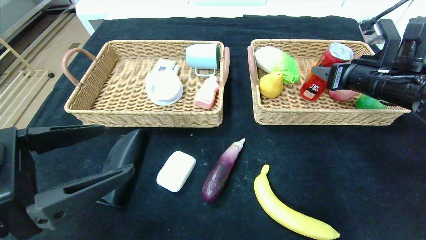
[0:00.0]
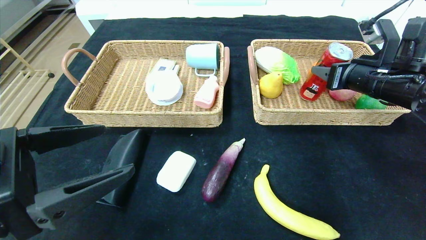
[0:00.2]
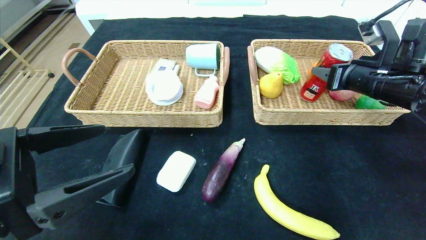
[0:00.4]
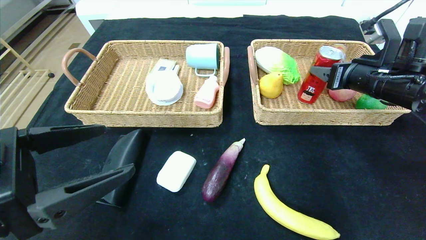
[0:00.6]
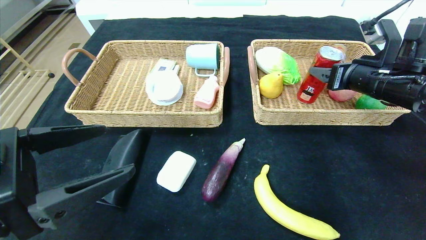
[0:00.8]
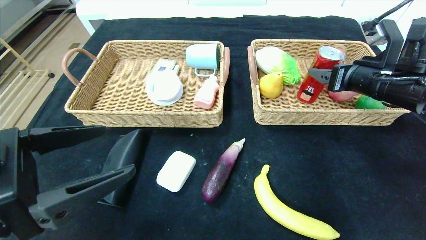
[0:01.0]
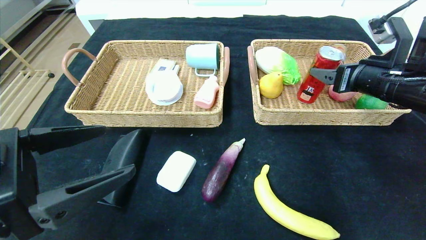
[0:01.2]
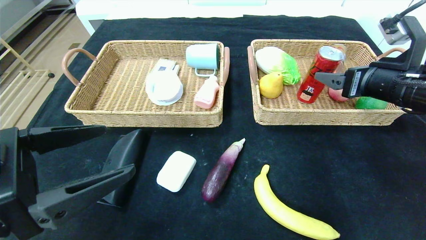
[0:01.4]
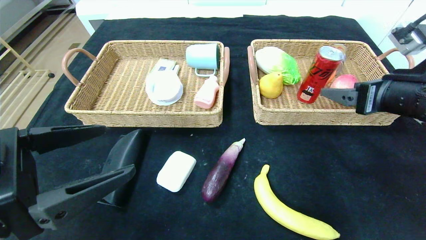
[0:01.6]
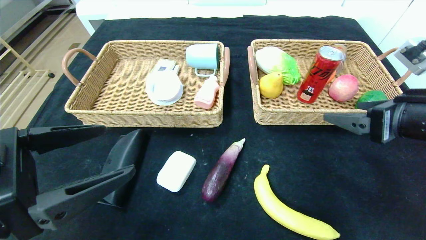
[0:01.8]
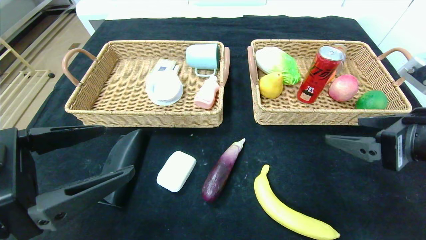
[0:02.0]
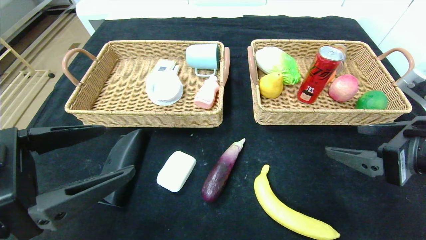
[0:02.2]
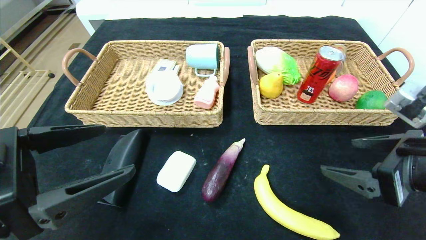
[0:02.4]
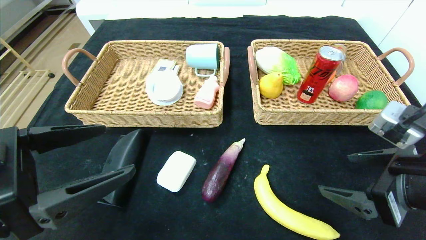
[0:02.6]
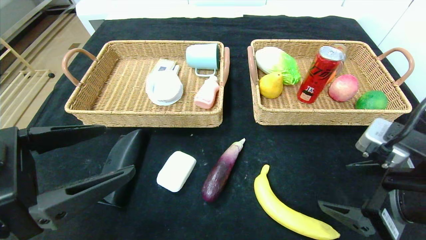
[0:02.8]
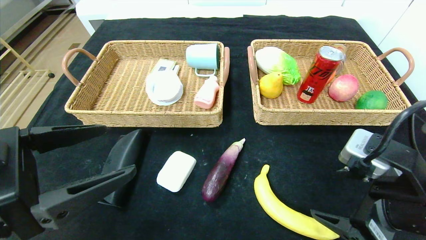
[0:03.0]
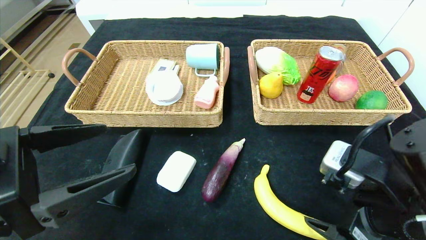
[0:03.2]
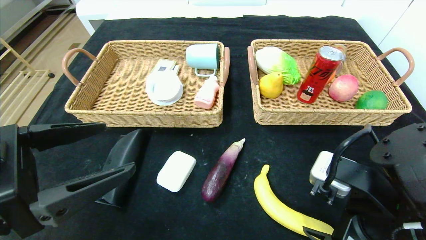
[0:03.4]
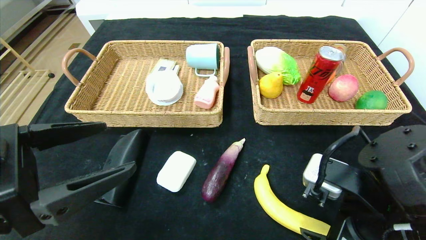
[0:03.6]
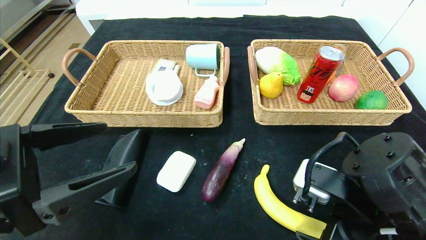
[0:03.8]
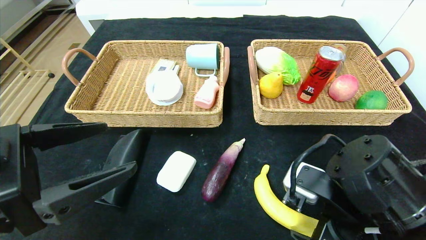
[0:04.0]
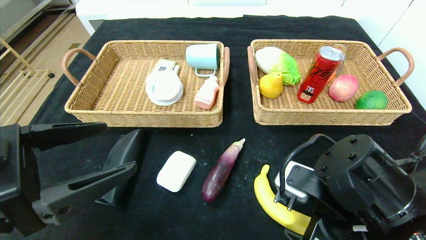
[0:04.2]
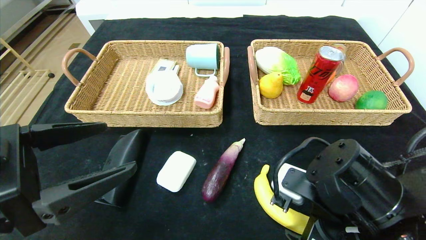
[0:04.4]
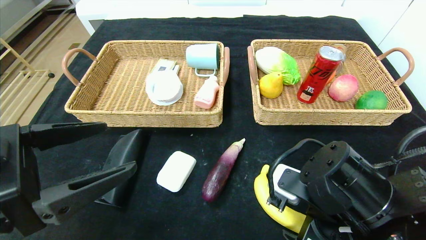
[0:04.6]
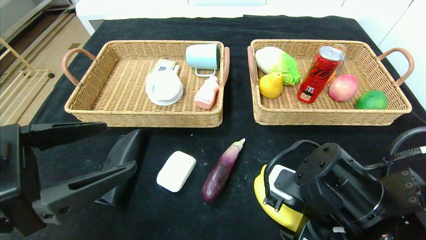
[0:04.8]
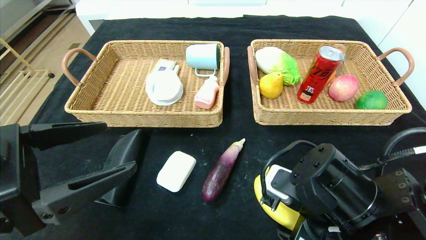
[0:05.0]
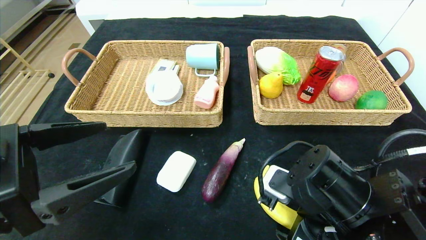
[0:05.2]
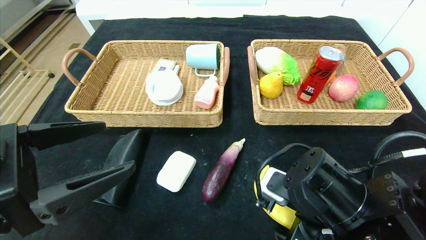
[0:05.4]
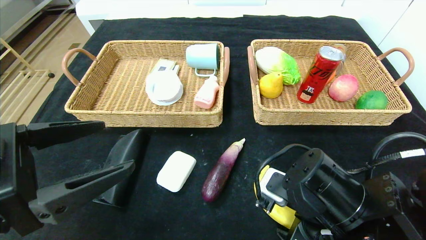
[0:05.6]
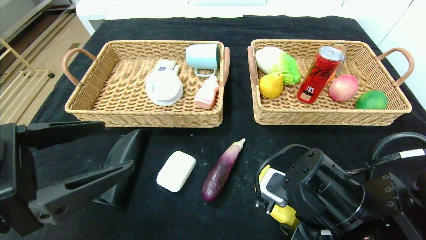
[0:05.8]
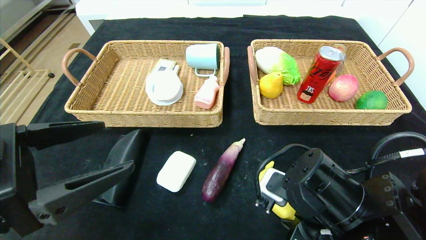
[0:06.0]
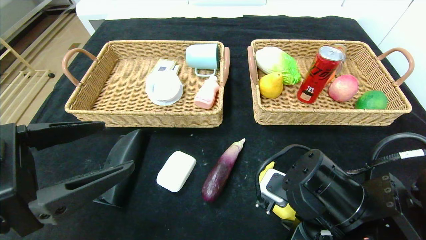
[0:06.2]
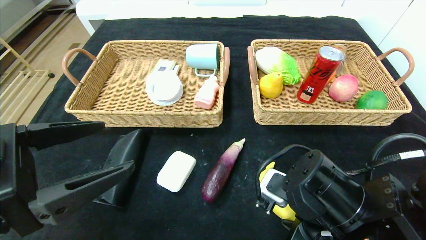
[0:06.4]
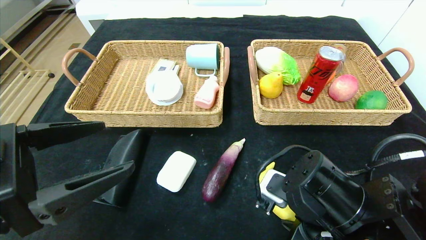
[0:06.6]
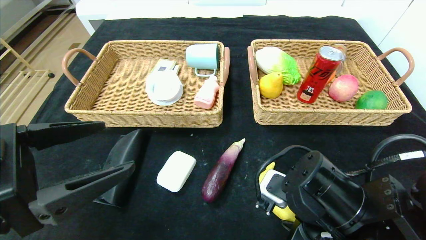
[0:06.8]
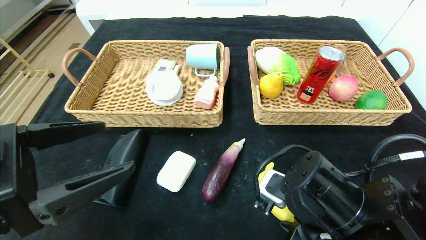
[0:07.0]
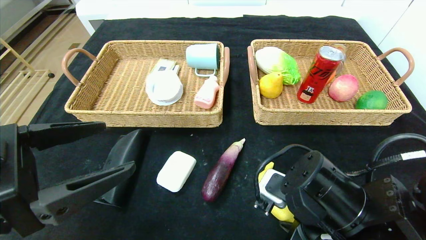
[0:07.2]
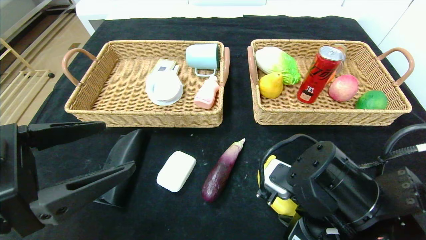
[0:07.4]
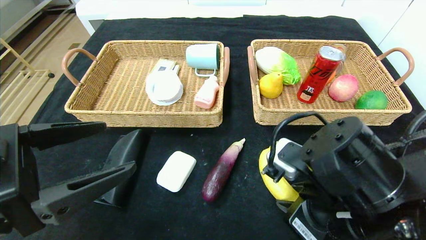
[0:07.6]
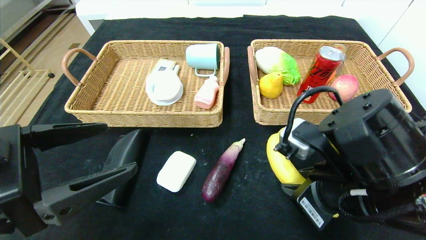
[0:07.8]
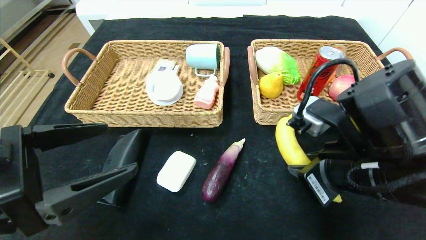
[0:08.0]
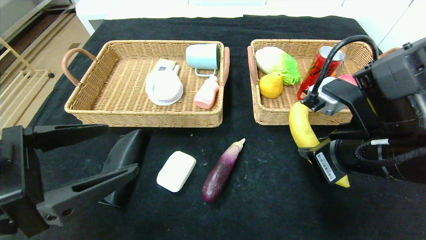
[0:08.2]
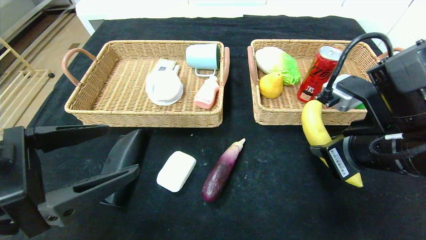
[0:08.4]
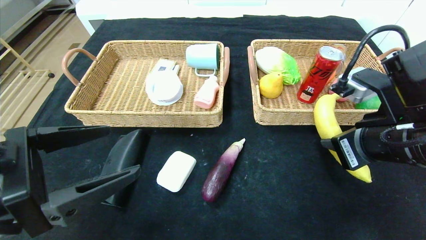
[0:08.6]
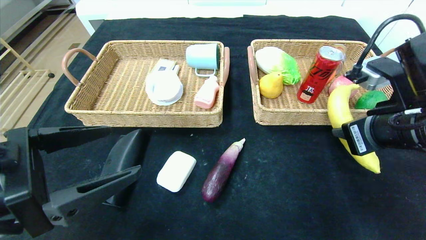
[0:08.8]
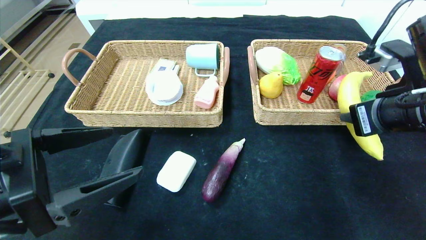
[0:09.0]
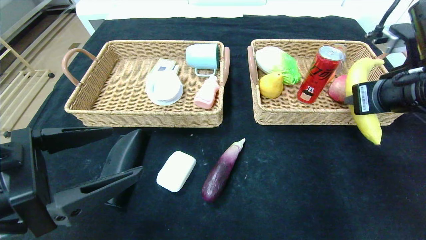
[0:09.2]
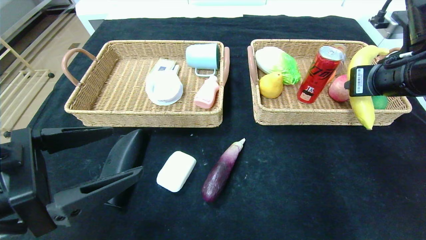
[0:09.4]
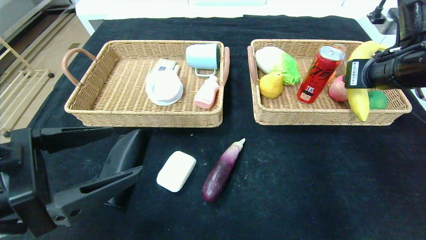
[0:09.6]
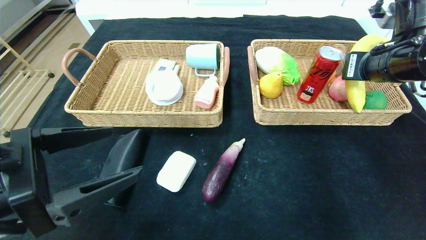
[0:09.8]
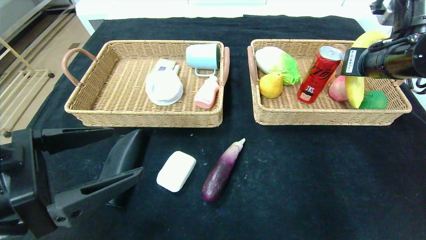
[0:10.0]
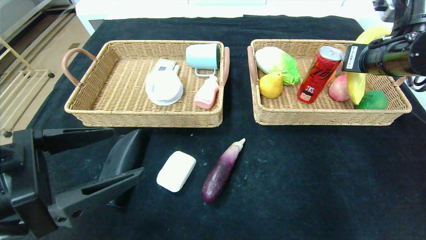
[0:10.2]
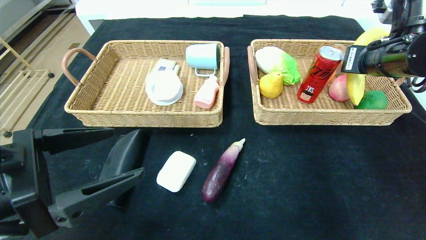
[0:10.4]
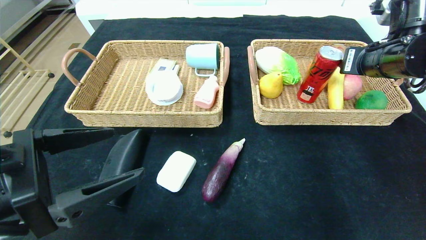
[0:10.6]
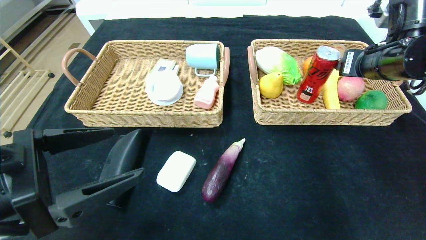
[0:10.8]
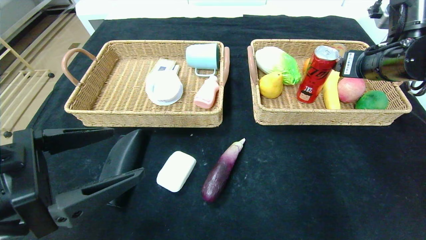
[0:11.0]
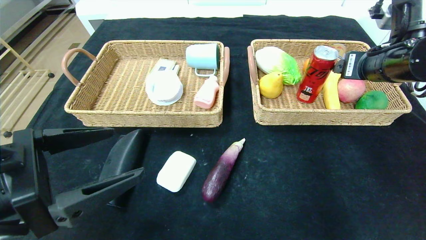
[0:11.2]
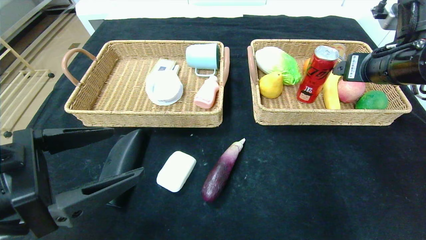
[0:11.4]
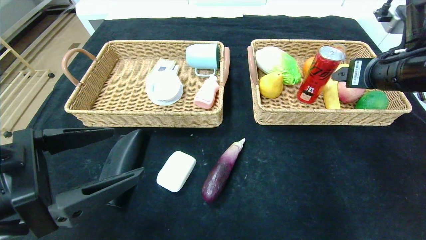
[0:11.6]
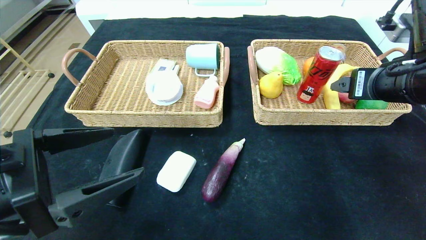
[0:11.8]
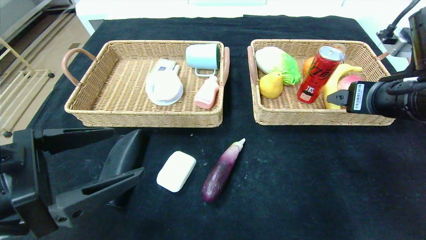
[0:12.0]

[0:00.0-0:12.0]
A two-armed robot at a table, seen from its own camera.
Step, 0:01.0 to 0:10.6: Grasp the banana and put it in the right basket.
0:00.0 to 0:01.6: The right gripper heads backward, covering some 10 cm, and opens.
0:01.6 to 0:03.0: The right gripper moves backward, downward and to the left, some 15 cm.
0:03.0 to 0:04.4: The right gripper heads to the left, covering some 5 cm.
0:04.4 to 0:06.0: The right gripper closes its fingers.
0:06.0 to 0:07.6: There are only small adjustments of the grippers.
0:07.6 to 0:09.0: The right gripper is displaced to the right, upward and forward by approximately 15 cm.
0:09.0 to 0:10.4: The right gripper moves forward, approximately 10 cm.
0:10.4 to 0:12.0: The right gripper shifts roughly 10 cm backward, and opens up.

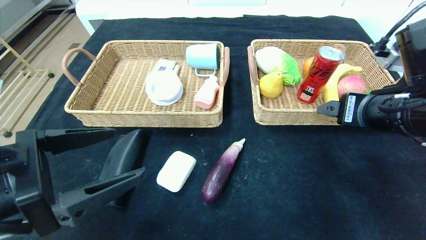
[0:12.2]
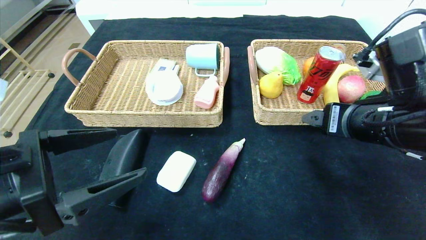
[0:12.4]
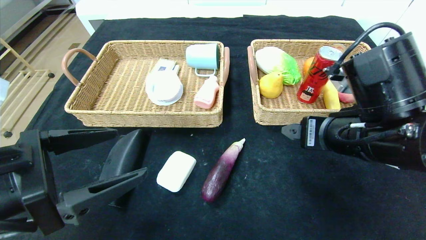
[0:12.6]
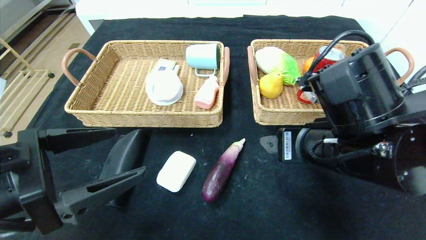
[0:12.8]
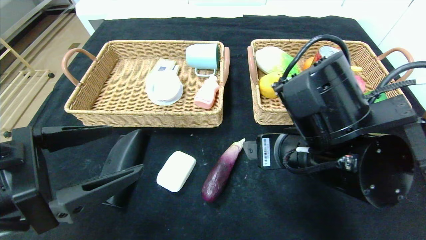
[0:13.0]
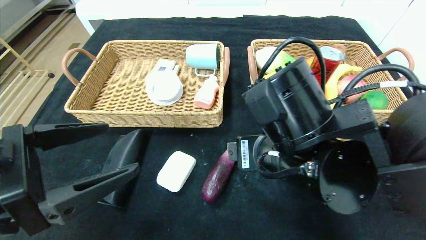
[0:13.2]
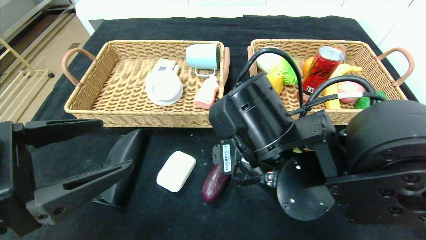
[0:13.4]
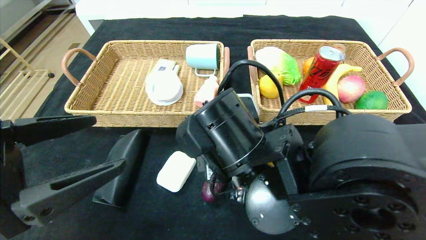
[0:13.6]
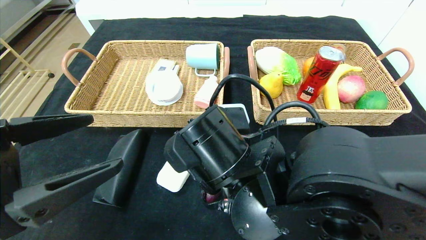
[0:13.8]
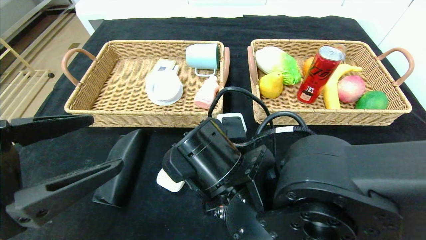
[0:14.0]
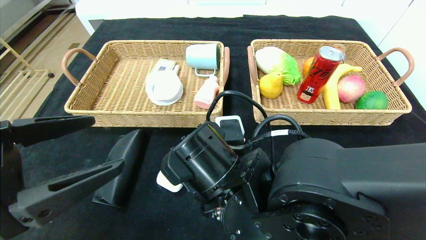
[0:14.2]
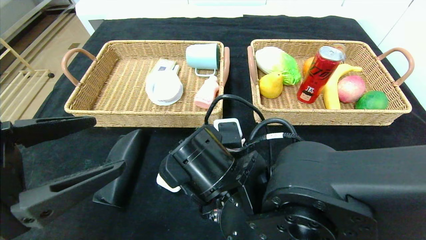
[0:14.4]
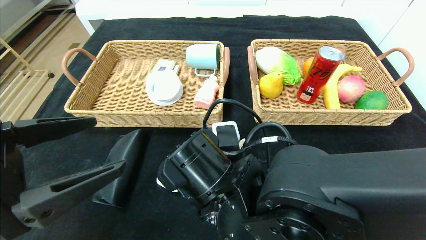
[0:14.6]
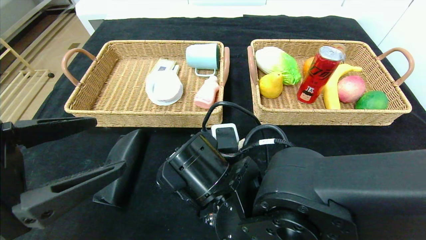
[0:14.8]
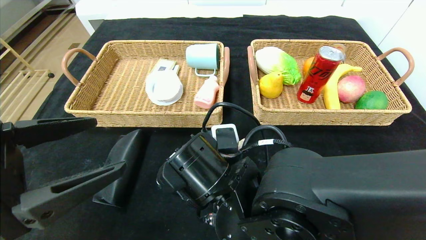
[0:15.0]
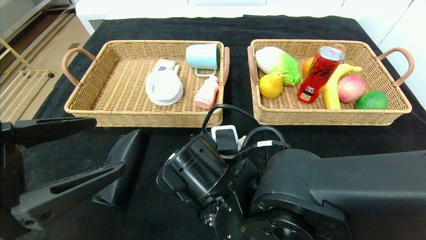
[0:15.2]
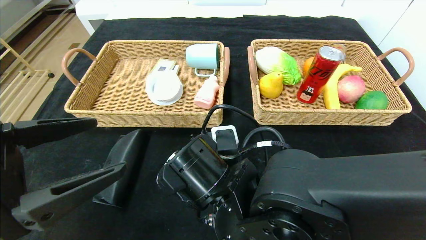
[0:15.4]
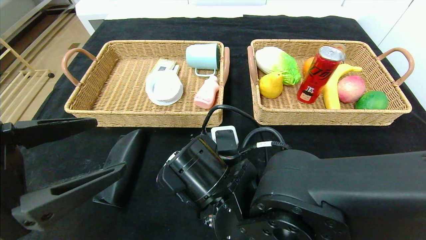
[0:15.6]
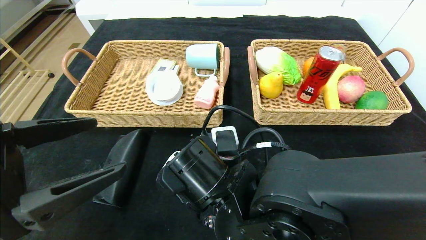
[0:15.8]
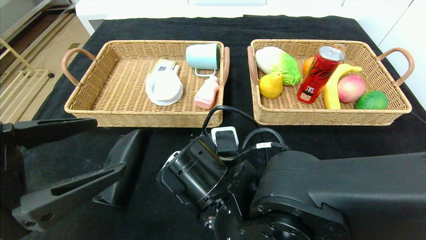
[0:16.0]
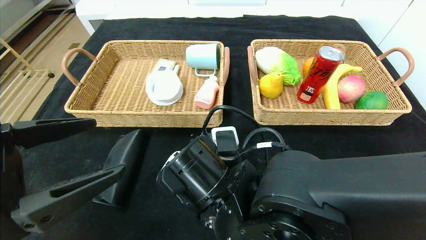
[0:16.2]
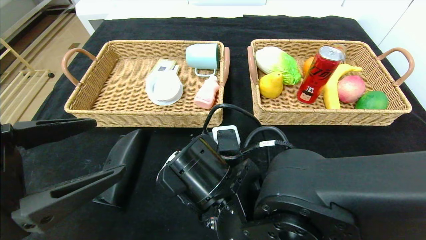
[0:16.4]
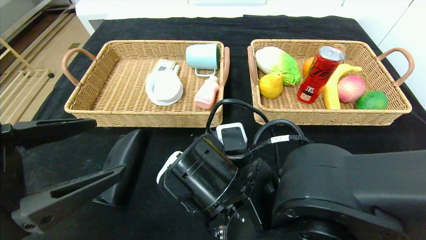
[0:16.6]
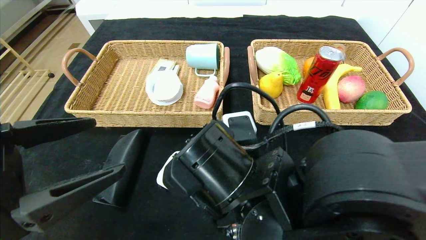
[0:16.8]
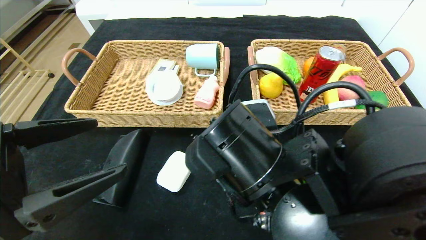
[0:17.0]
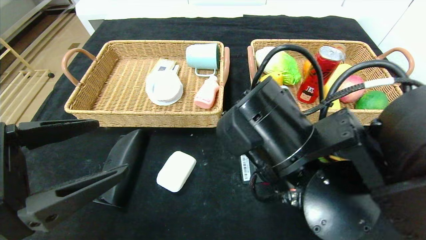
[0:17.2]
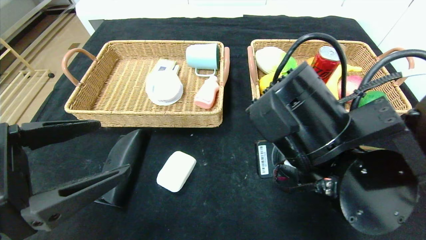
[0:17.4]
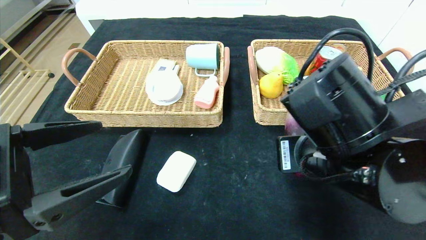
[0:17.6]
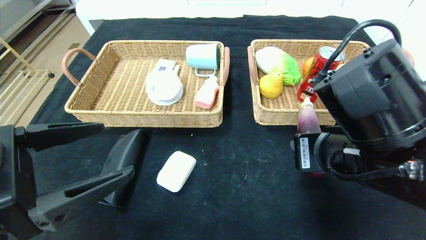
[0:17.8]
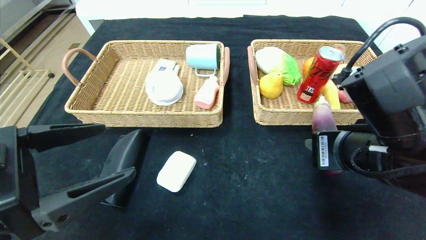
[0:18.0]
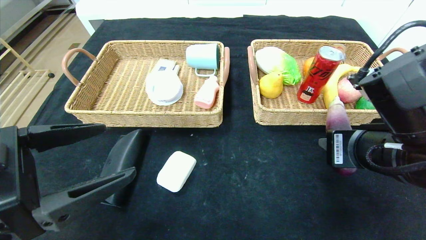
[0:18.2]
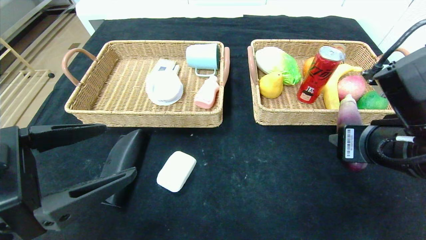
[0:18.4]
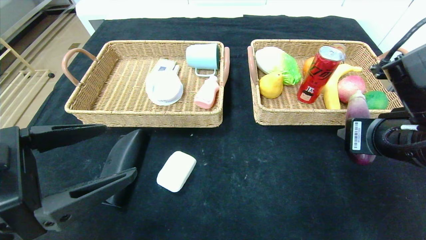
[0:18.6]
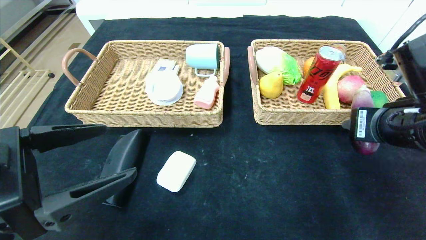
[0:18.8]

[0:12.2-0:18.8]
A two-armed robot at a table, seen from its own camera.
0:12.2 to 0:13.8: The right gripper is displaced to the left by roughly 20 cm.
0:13.8 to 0:15.4: The right gripper closes its fingers.
0:15.4 to 0:17.2: The right gripper goes roughly 10 cm upward and to the right.
0:17.2 to 0:18.8: The right gripper heads to the right, covering some 15 cm.
